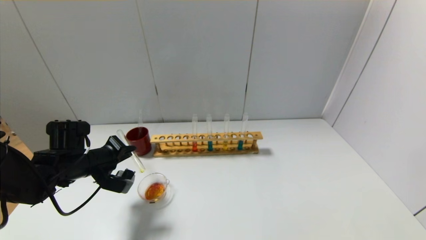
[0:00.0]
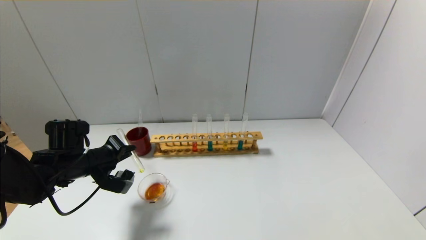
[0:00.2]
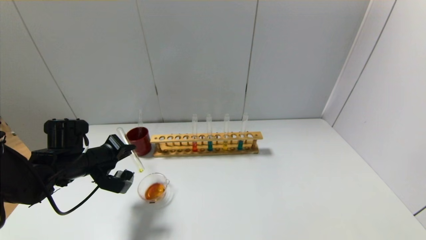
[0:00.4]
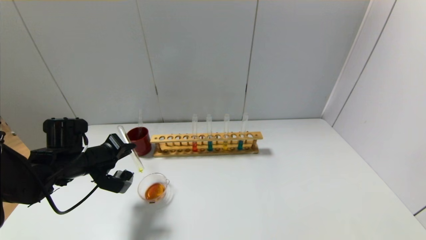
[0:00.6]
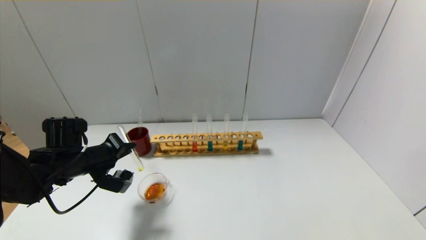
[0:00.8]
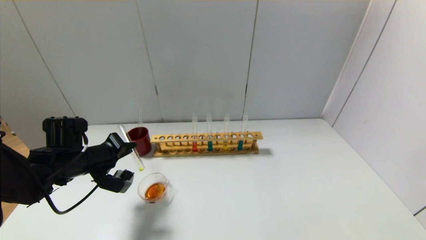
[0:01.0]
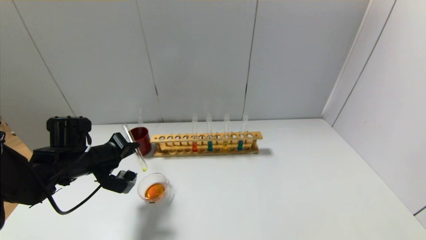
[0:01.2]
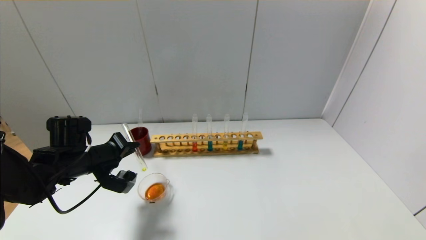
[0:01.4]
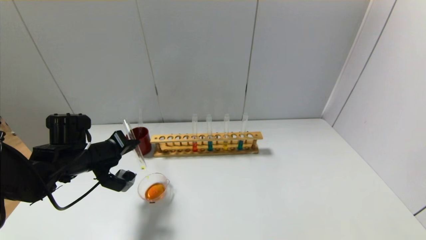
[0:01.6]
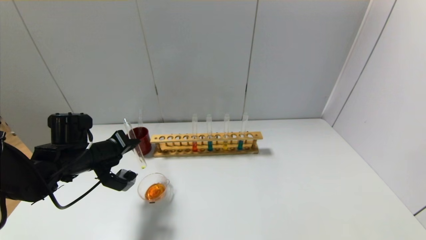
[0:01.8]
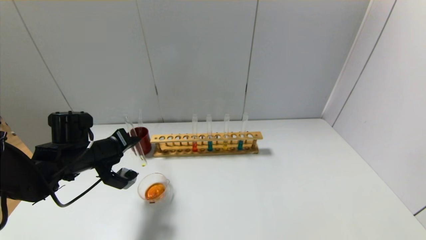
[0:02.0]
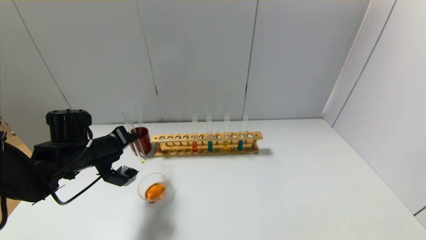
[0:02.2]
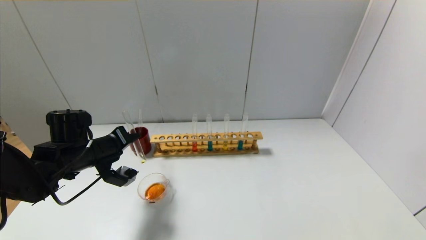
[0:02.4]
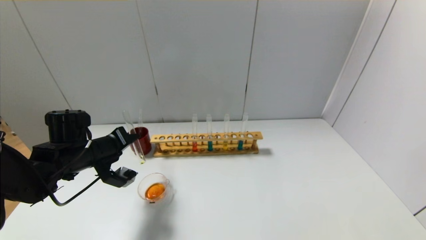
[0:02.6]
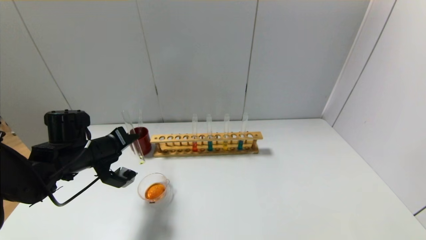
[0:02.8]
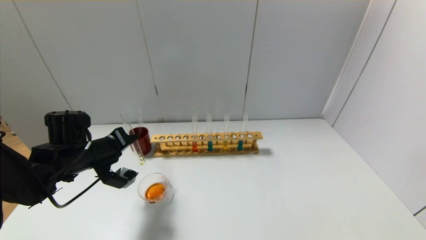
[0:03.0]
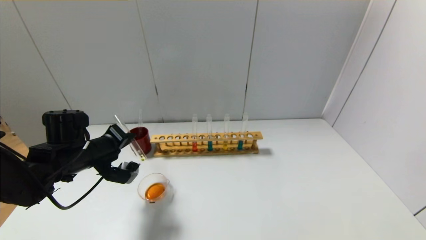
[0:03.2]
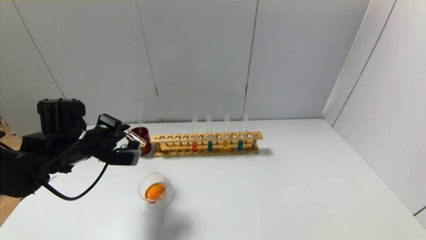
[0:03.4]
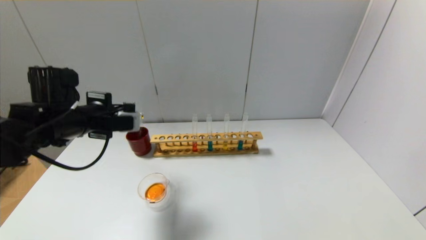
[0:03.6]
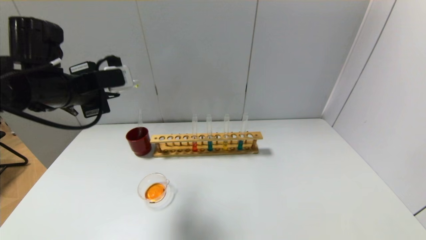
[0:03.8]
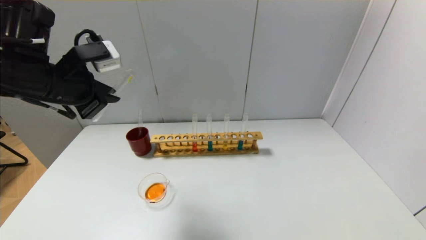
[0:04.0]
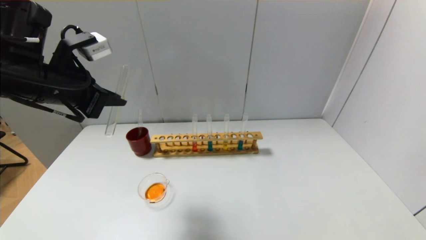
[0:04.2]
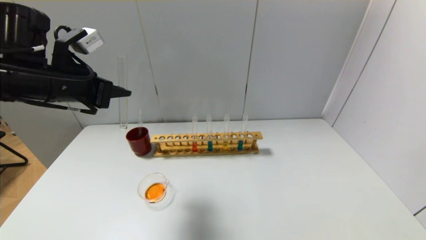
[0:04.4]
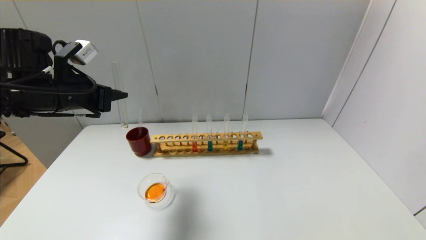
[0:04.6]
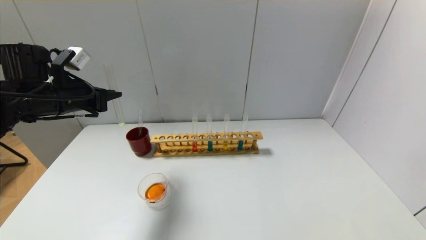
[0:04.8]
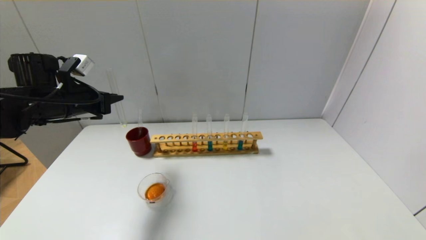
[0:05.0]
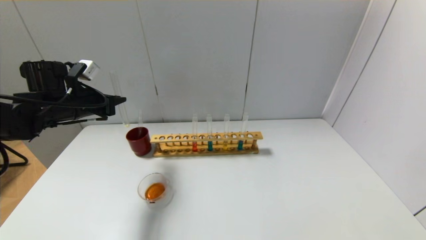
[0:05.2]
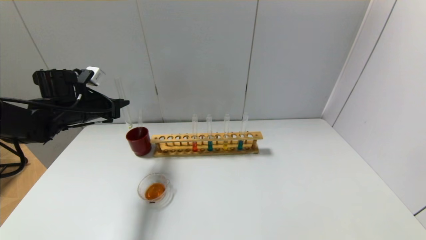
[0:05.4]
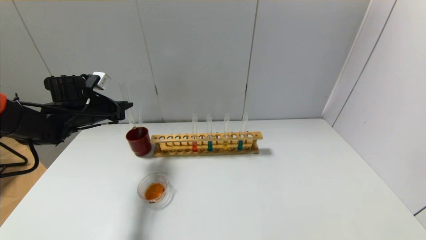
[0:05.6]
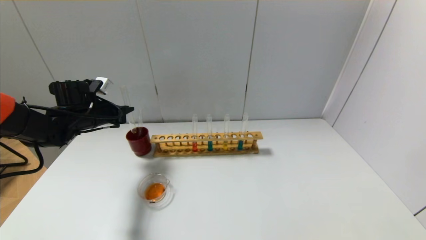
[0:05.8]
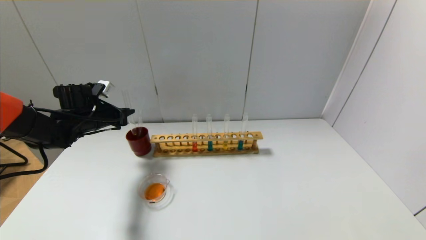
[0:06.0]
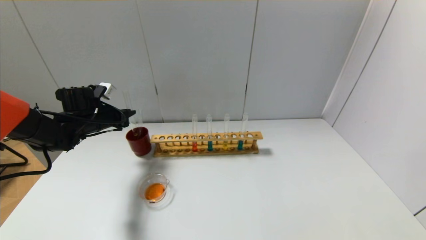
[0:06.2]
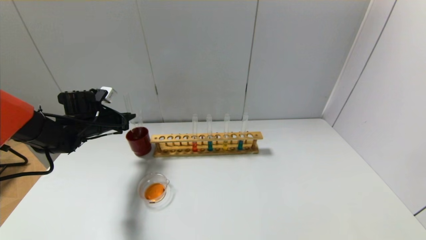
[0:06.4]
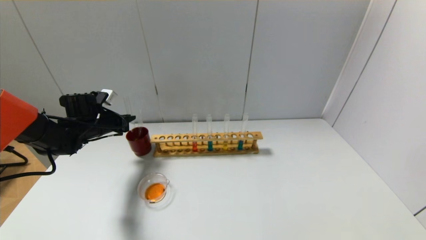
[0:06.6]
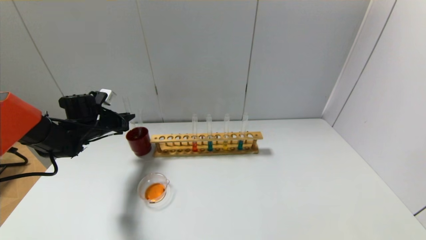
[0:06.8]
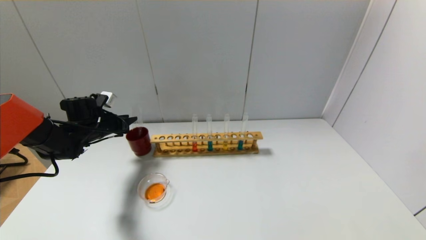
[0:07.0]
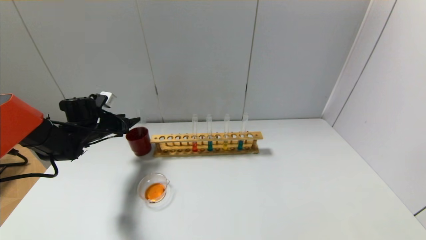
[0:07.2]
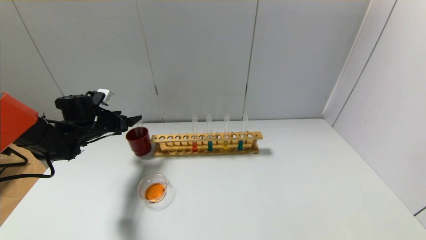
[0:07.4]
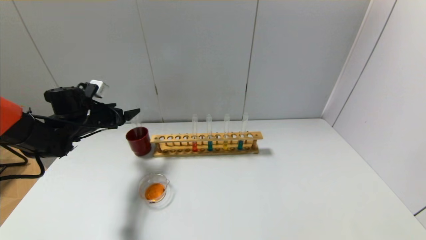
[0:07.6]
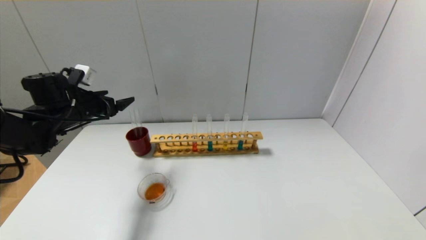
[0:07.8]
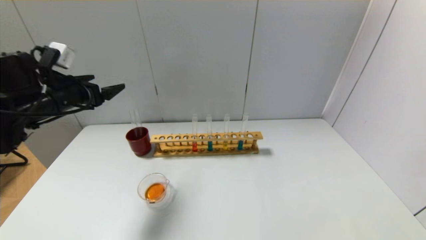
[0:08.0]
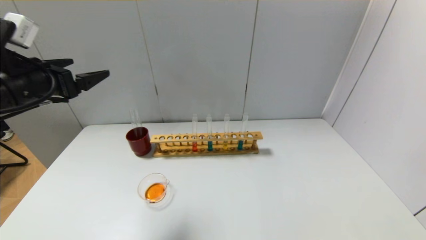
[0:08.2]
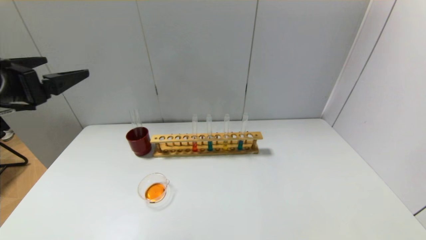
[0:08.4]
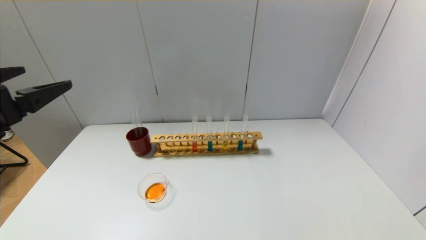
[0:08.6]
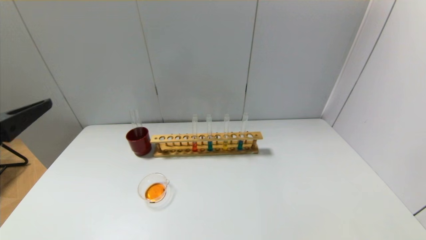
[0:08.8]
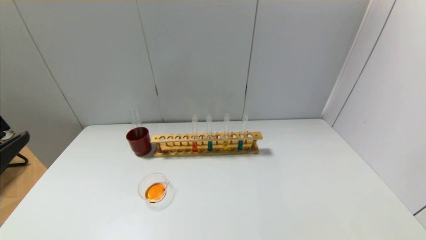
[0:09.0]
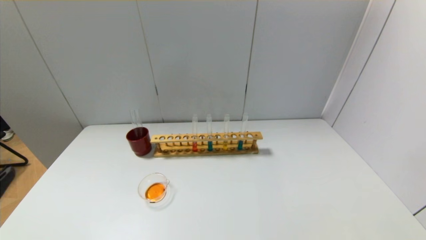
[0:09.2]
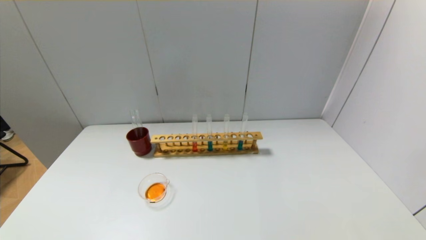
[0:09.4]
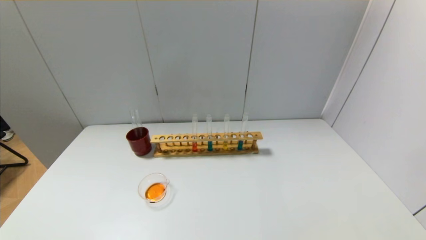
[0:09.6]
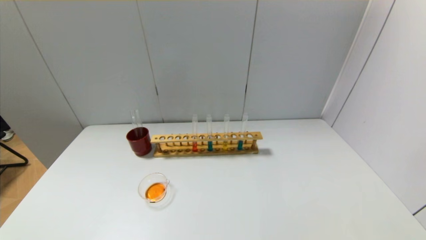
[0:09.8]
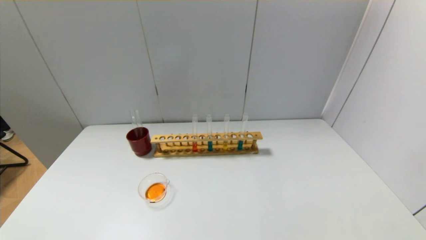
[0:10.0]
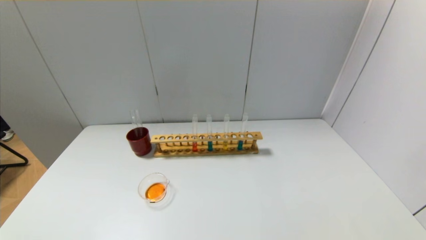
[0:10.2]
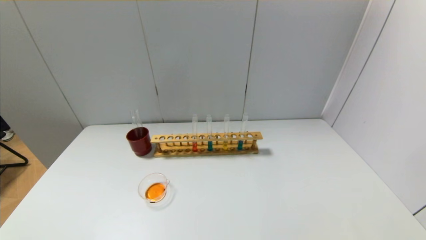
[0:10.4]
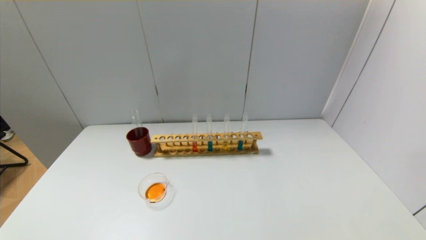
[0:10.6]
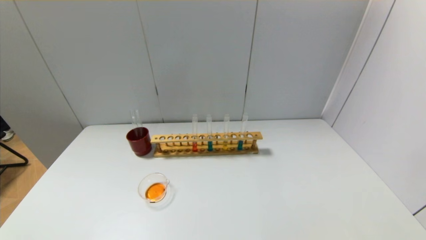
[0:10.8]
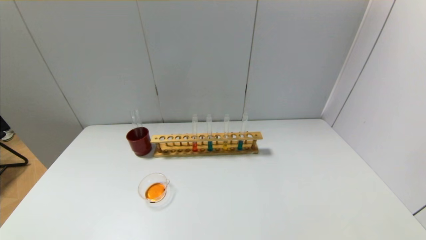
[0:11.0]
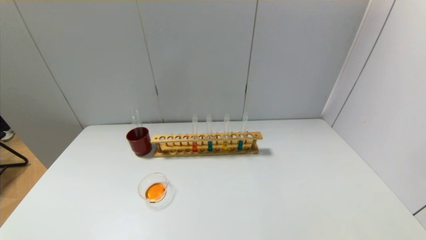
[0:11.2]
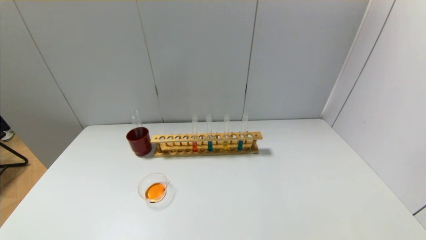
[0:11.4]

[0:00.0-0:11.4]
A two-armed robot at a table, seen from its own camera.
Step, 0:00.0 to 0:03.0: Pour the yellow reagent into the graduated cylinder with the left gripper.
Step, 0:03.2 to 0:07.0: Place the test tube into the brown cup with the left gripper.
0:00.0 to 0:01.4: The grippers make only small movements.
0:01.4 to 0:02.8: There are only small adjustments of the grippers.
0:02.8 to 0:04.2: The left gripper moves upward, about 20 cm.
0:04.2 to 0:05.6: The left gripper heads downward, forward and to the left, covering some 20 cm.
0:05.6 to 0:07.2: The left gripper goes approximately 5 cm downward, and opens up.
0:07.2 to 0:08.6: The left gripper goes some 35 cm backward and upward, and opens.
0:08.6 to 0:10.0: The left gripper goes roughly 25 cm backward and downward.

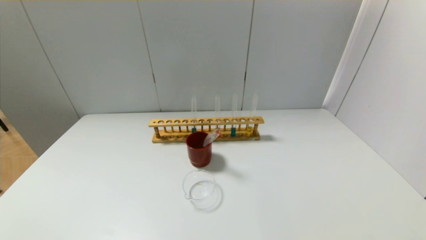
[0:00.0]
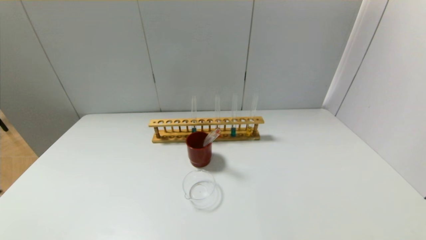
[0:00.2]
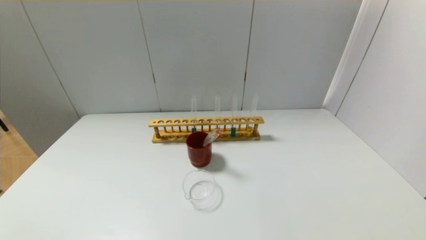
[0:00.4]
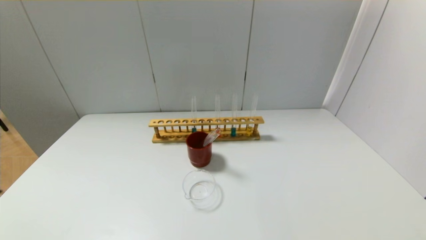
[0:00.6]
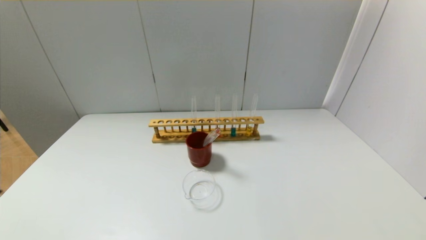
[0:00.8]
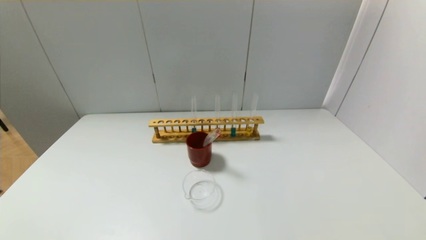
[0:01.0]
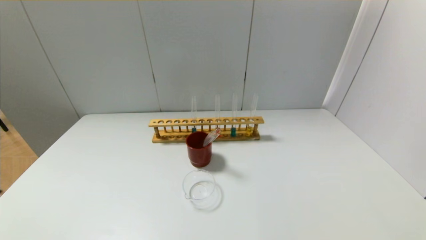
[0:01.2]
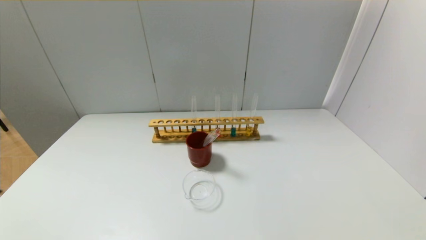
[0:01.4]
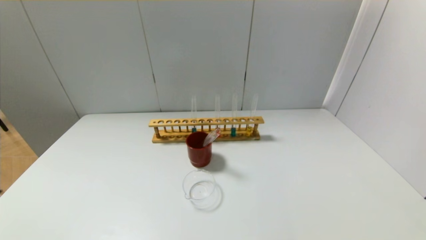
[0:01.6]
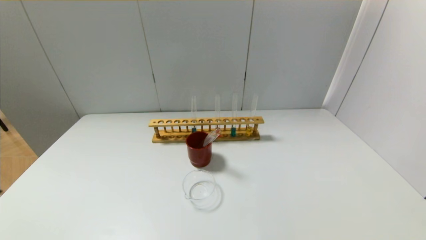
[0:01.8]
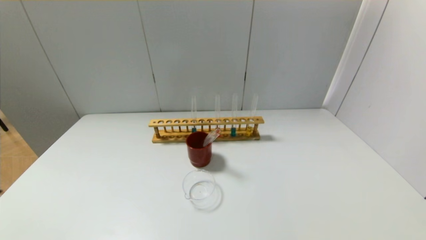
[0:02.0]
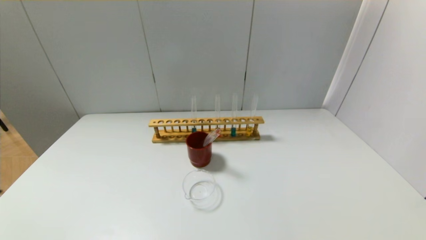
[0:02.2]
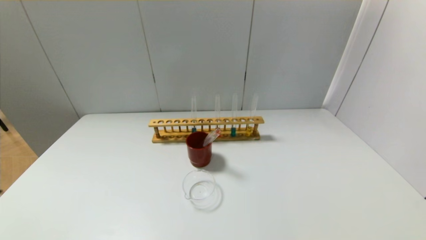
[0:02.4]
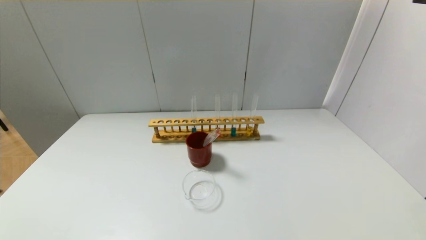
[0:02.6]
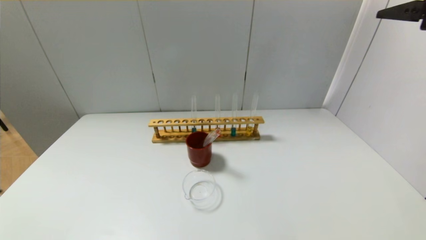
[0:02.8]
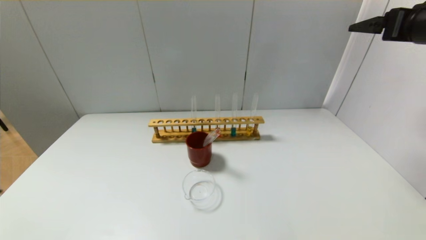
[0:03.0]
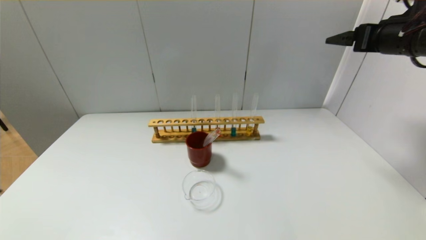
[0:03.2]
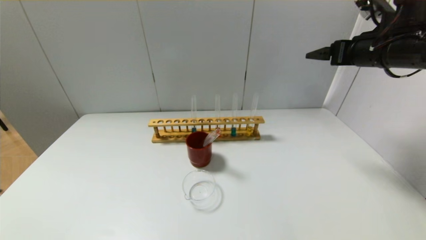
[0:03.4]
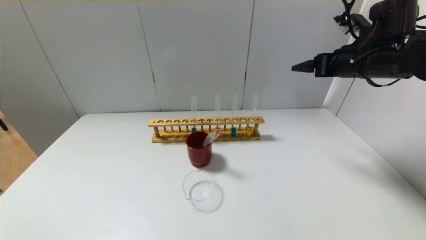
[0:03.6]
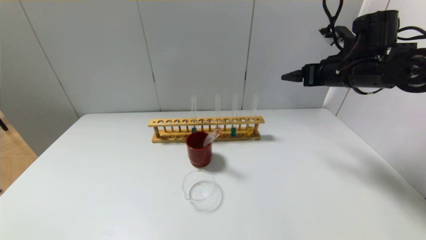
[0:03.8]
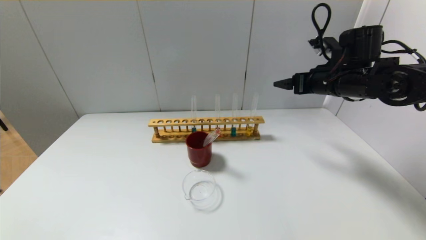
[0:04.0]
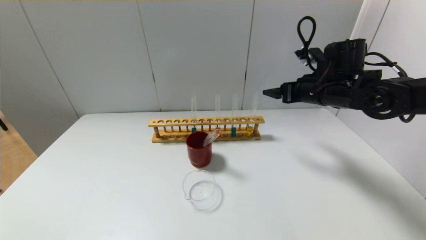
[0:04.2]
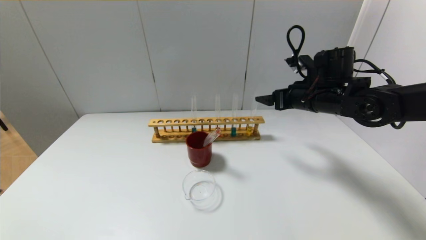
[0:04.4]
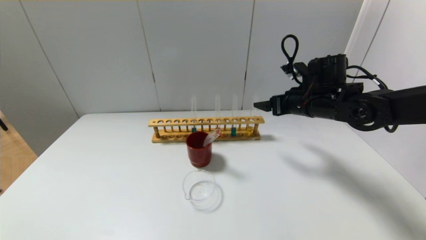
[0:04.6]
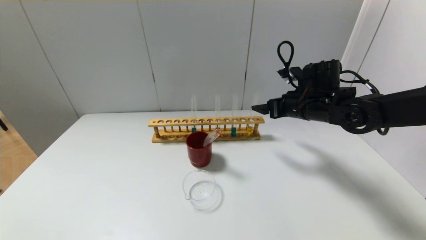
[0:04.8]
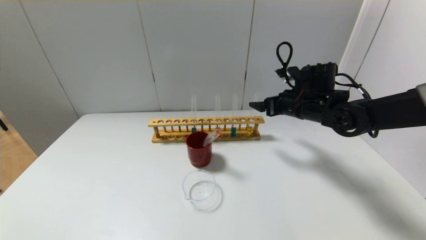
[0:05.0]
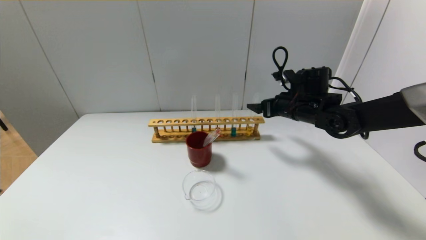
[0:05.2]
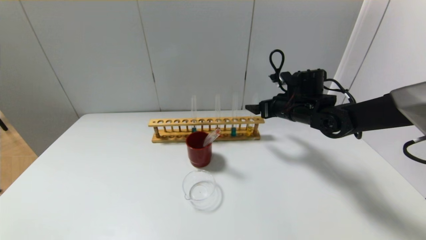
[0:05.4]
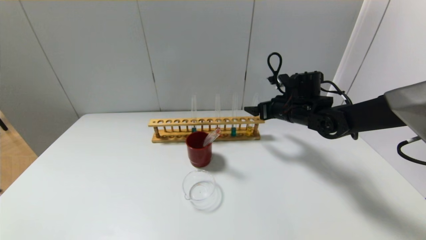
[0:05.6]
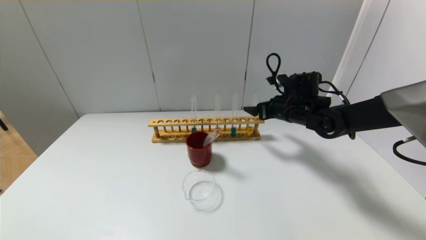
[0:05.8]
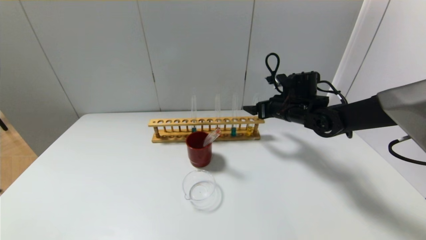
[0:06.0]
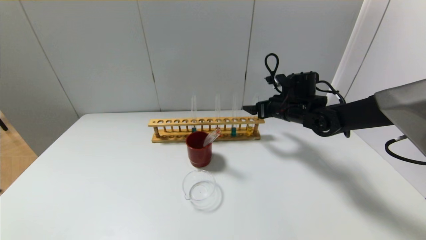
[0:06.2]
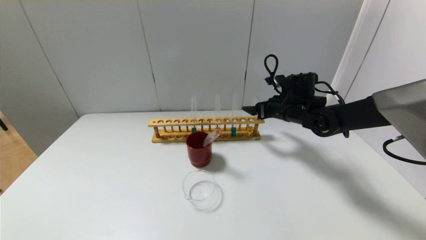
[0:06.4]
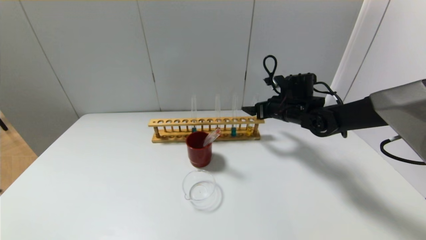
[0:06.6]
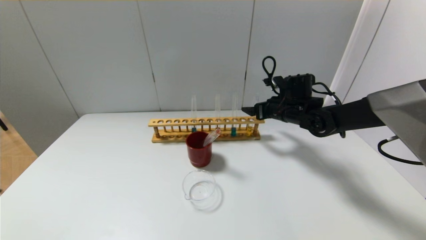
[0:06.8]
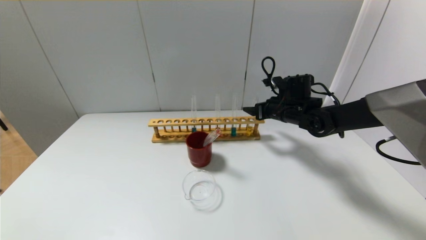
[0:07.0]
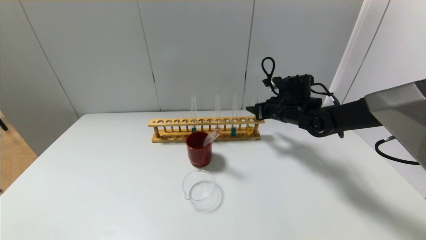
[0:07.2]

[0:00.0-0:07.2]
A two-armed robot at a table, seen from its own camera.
0:01.4 to 0:02.8: The right gripper goes approximately 30 cm forward.
0:02.8 to 0:04.4: The right gripper heads downward, to the left and forward, covering roughly 25 cm.
0:04.4 to 0:05.8: The right gripper travels downward by about 5 cm.
0:05.8 to 0:07.2: The right gripper closes.
